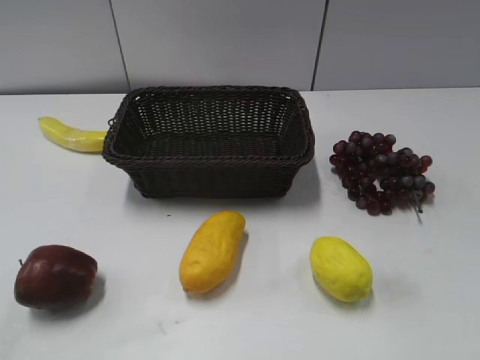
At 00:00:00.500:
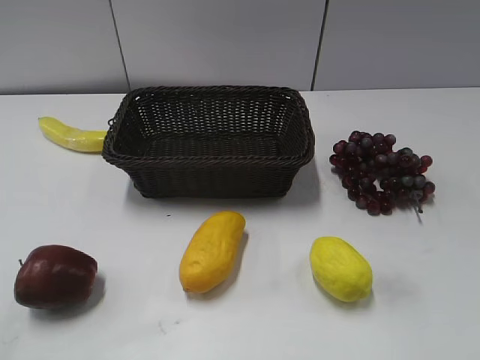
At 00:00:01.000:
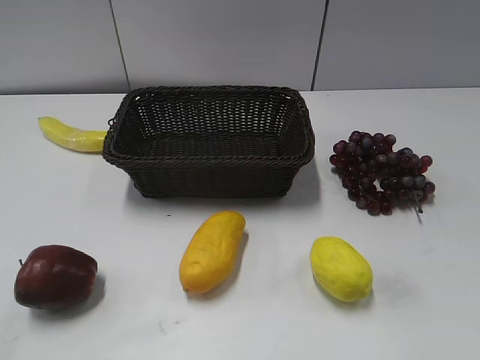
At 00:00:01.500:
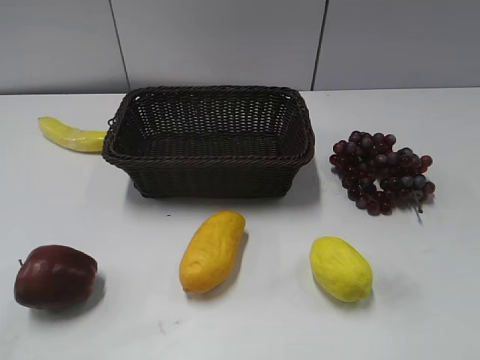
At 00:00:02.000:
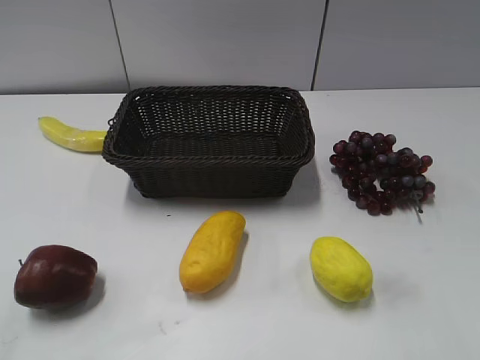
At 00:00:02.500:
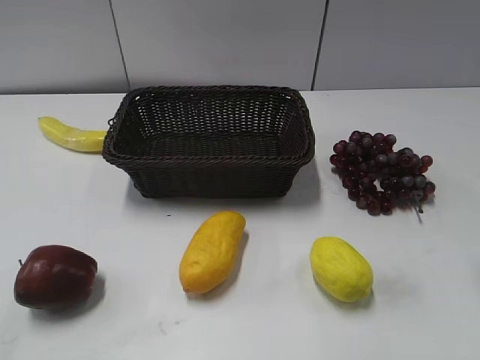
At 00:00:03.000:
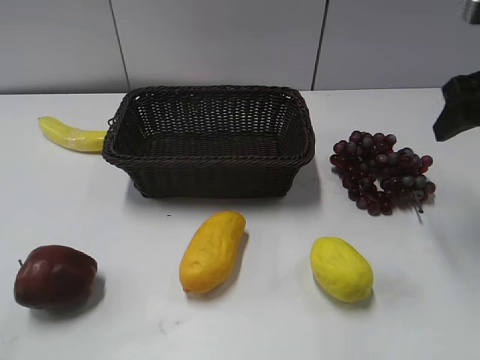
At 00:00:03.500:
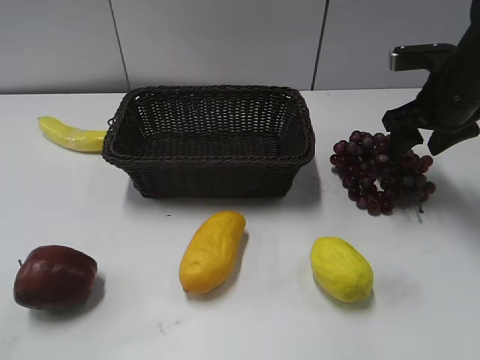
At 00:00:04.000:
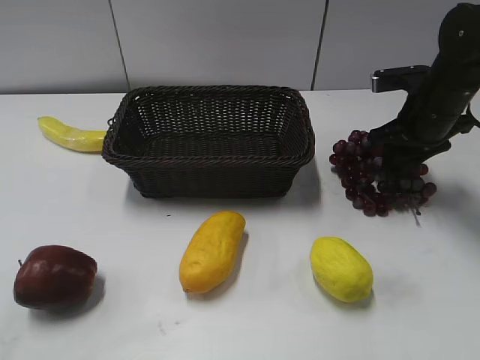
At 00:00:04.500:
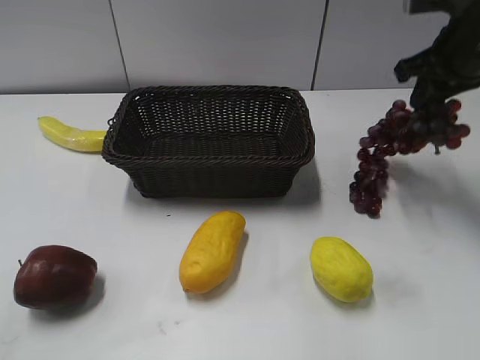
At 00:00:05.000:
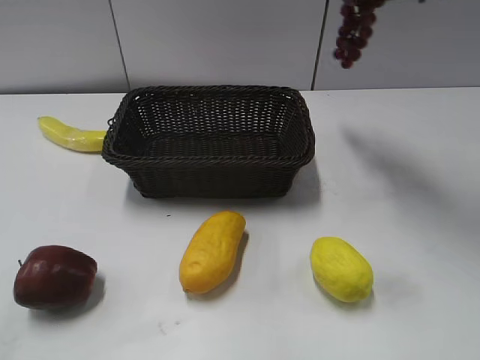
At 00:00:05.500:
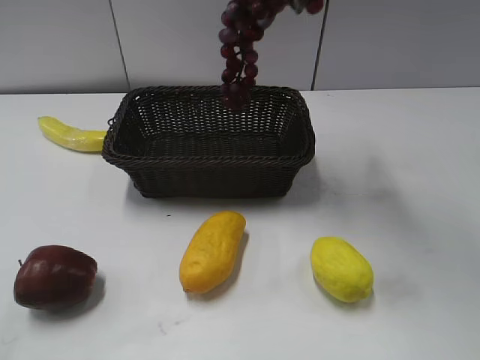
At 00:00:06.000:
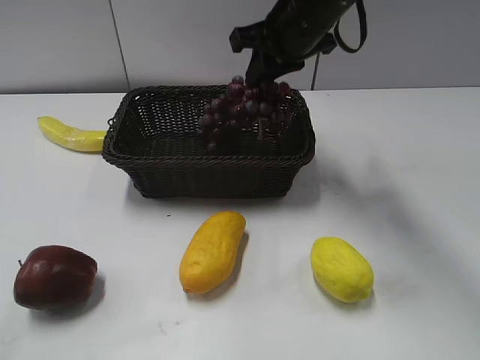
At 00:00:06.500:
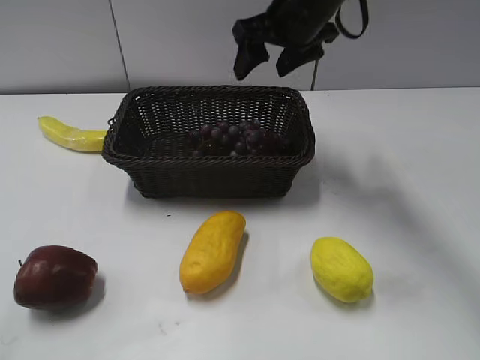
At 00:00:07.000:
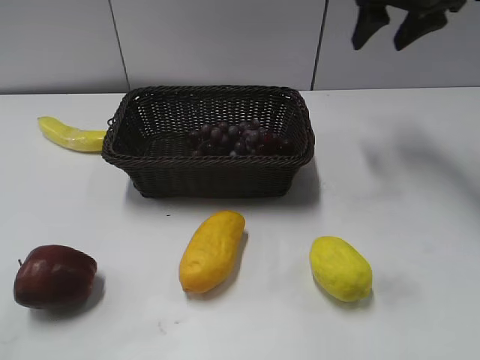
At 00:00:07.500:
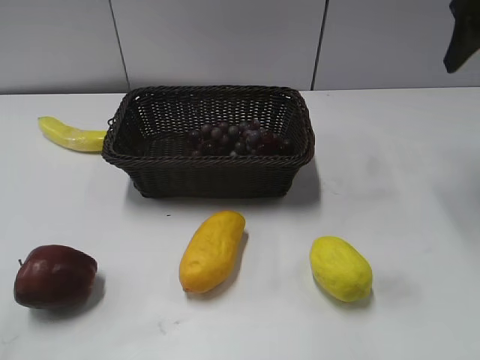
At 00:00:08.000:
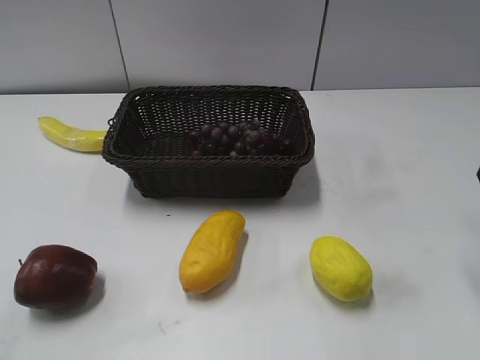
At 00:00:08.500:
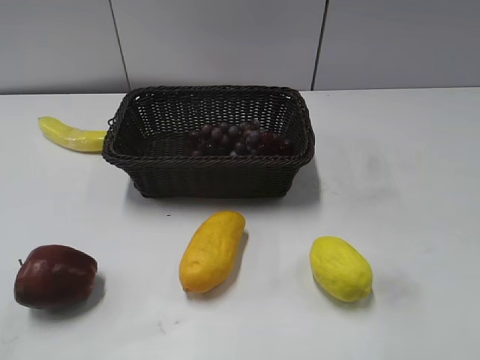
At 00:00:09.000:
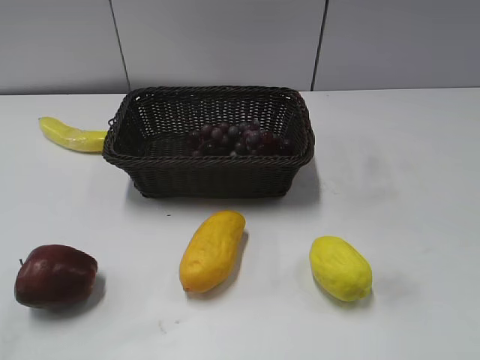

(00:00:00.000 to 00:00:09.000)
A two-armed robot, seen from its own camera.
Step, 00:00:03.000 - 00:00:04.000: Grasp the grape with right gripper.
Step, 00:00:04.500 - 00:00:06.500: Place the grape in the basket with right gripper.
00:00:02.000 - 00:00:04.500: The right gripper is displaced forward by about 25 cm, and closes its fingers.
00:00:04.500 - 00:00:07.000: The right gripper goes up and down, about 20 cm each way, reversing 2 times, and opens up.
00:00:07.000 - 00:00:09.000: The right gripper heads backward, covering some 40 cm.
